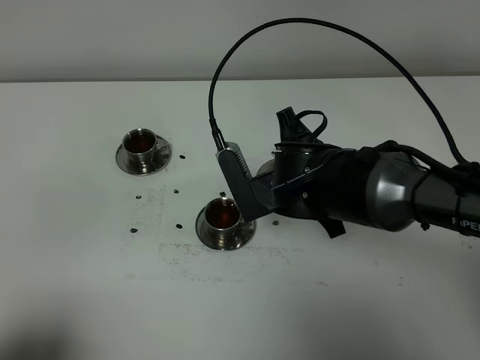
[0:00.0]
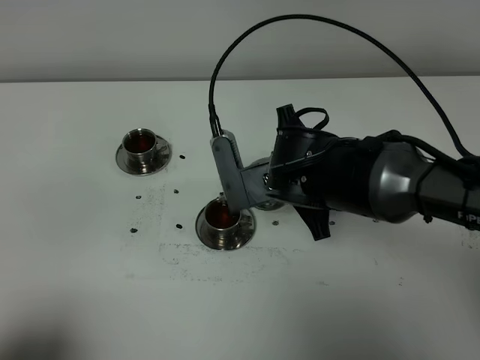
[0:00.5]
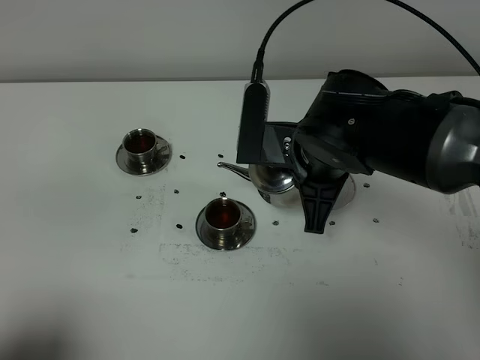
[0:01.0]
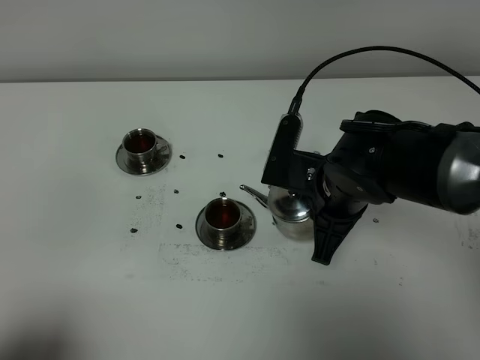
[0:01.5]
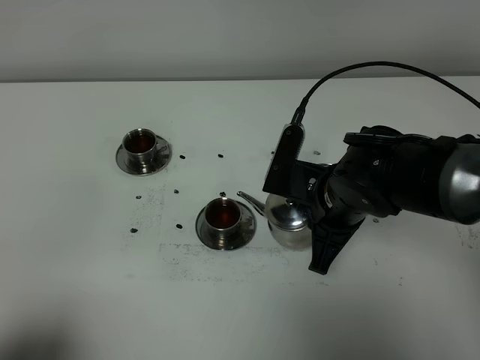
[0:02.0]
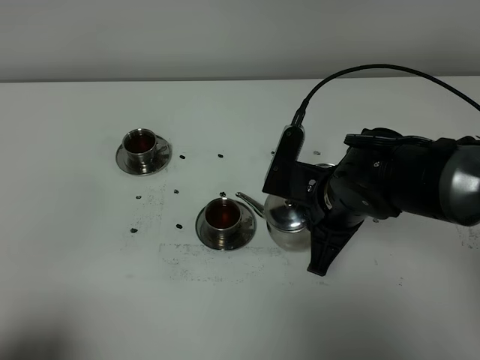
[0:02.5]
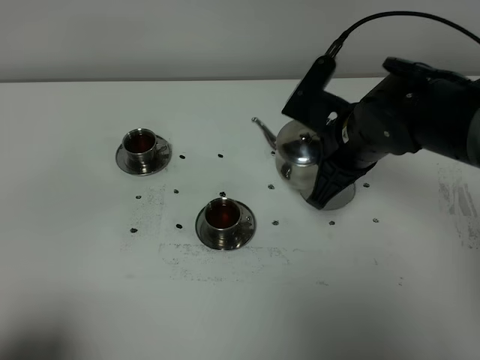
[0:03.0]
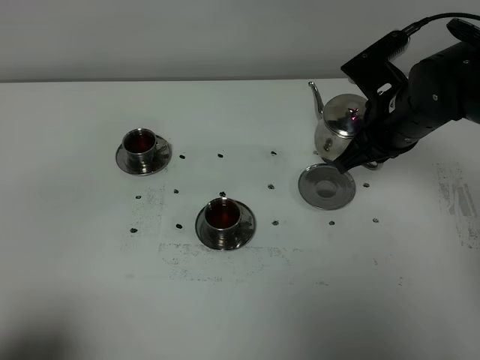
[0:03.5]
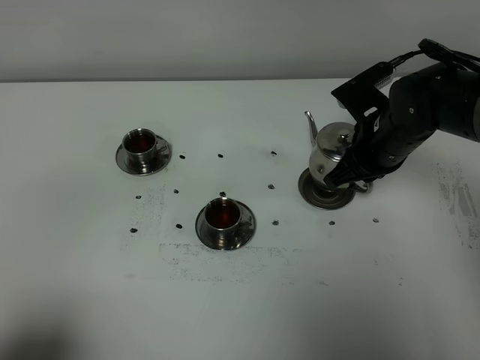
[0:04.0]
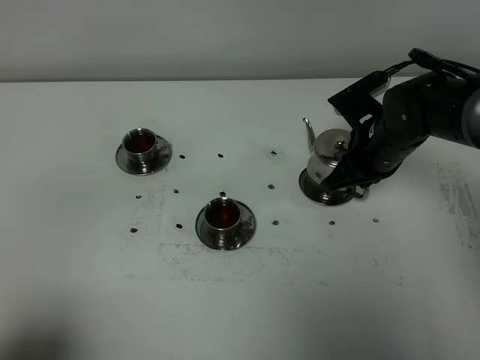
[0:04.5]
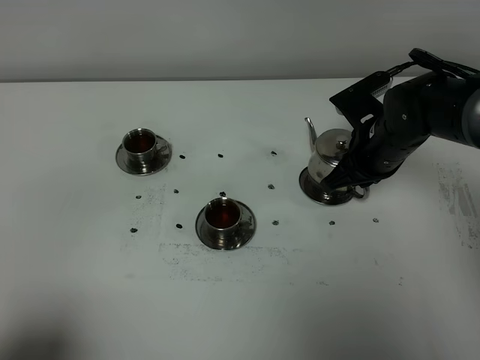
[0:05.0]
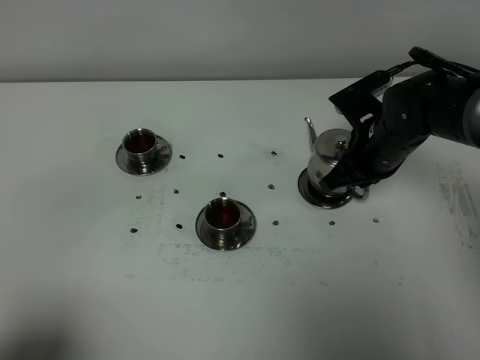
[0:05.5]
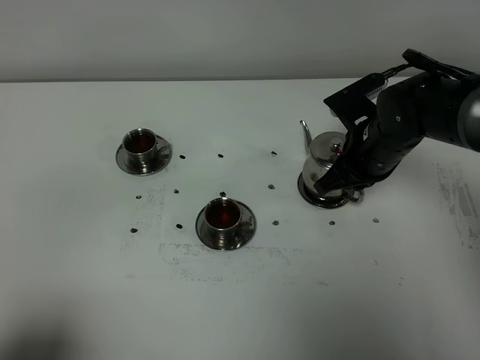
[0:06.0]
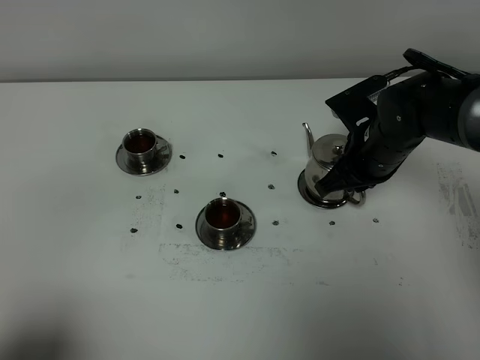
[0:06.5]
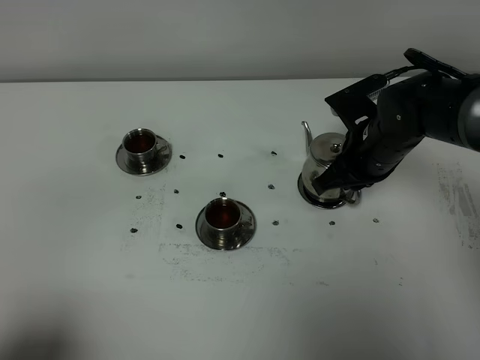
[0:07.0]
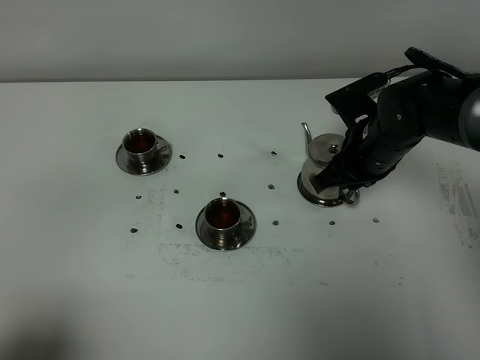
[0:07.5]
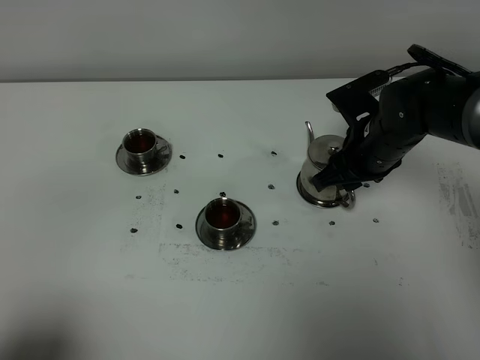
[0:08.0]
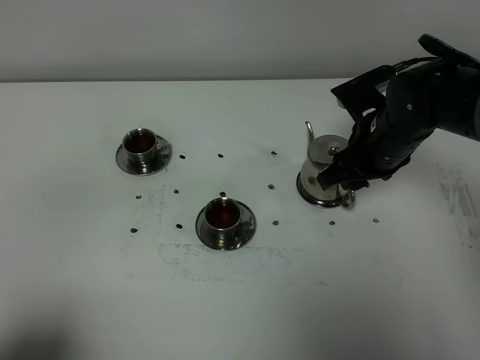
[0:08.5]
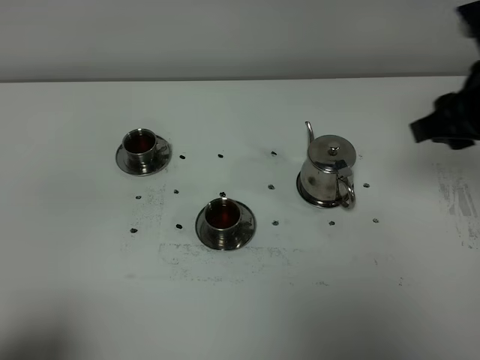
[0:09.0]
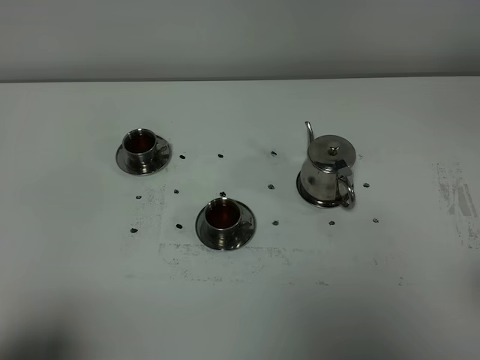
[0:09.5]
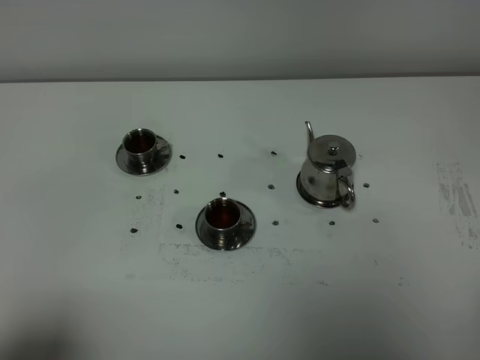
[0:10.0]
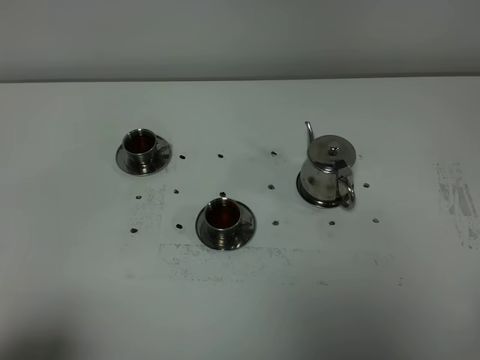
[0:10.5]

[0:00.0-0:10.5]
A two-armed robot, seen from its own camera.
Task of the whole recording: grasp the stainless steel teapot and pour the tea into the two stainless steel teacups one by one, put the stainless steel teapot back in its original place.
0:02.0 to 0:04.0: The right gripper is displaced to the right and forward by some 10 cm.
0:04.0 to 0:06.5: Both grippers stay about where they are.
0:06.5 to 0:08.5: The right gripper opens.
0:08.5 to 0:10.5: The right gripper shifts approximately 35 cm backward.

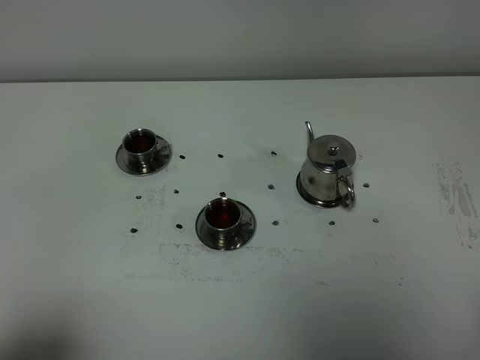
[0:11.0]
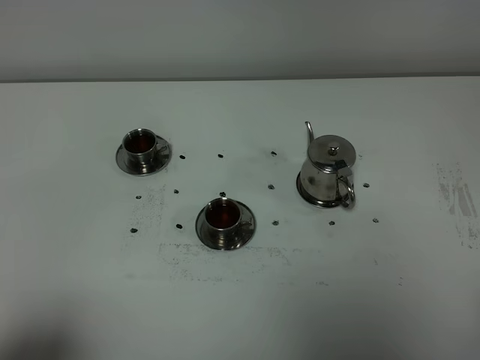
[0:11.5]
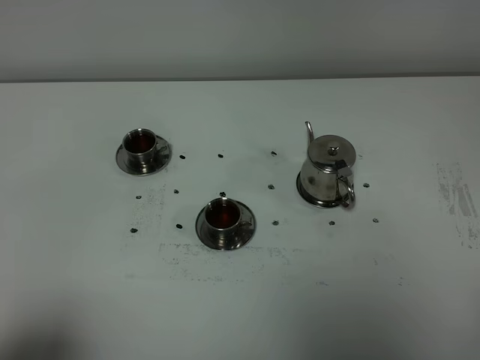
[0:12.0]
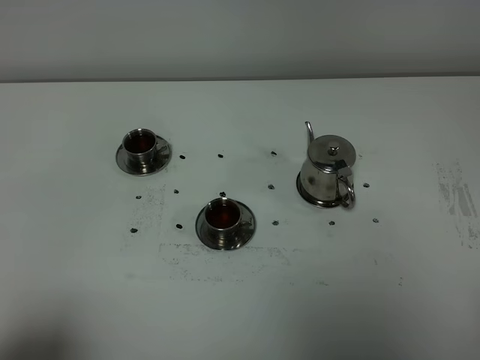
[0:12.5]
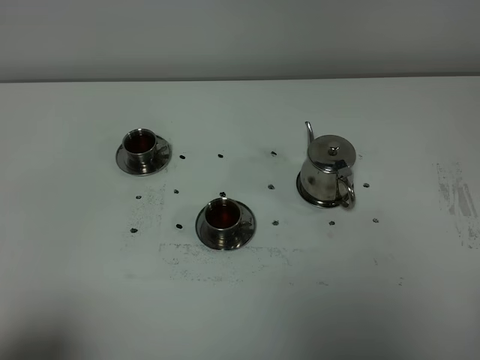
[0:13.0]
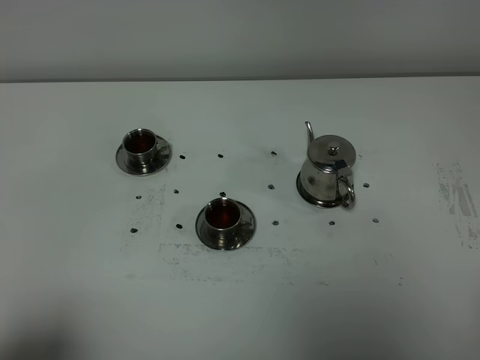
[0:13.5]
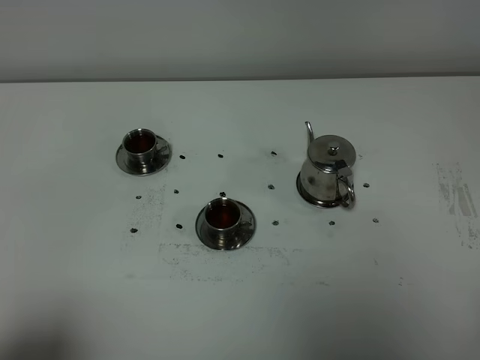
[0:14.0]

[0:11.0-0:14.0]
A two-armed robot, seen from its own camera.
Task of the whole recording: grasp the stainless steel teapot and pour the tea into the two stainless steel teacups one by one, put the stainless steel teapot back in its original place.
0:11.0 to 0:14.0: The two grippers keep their place.
